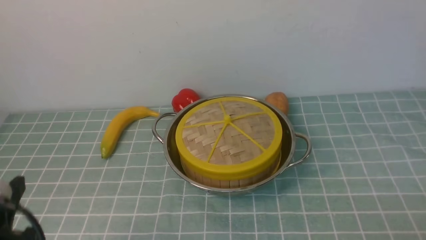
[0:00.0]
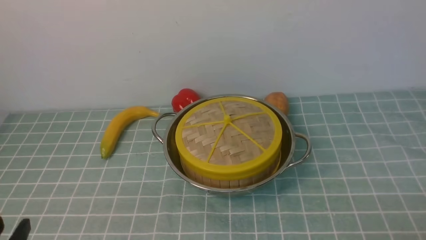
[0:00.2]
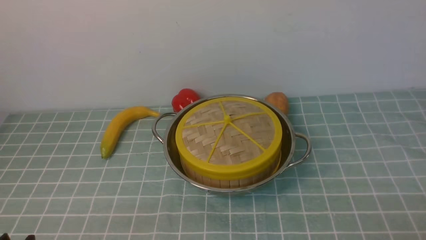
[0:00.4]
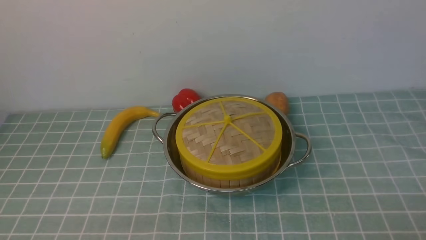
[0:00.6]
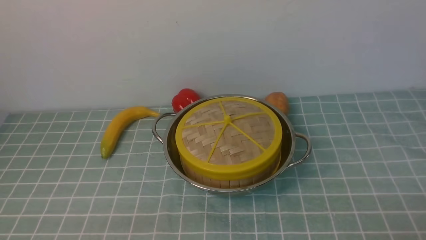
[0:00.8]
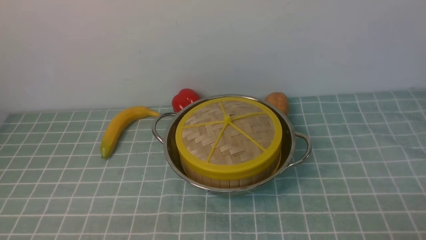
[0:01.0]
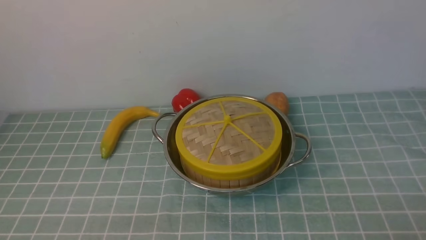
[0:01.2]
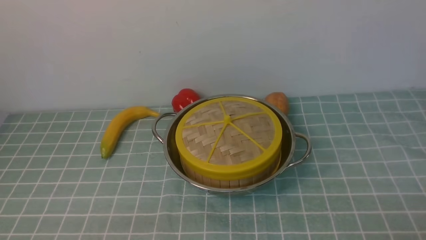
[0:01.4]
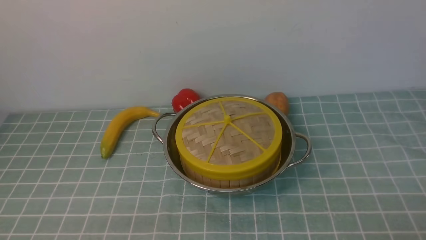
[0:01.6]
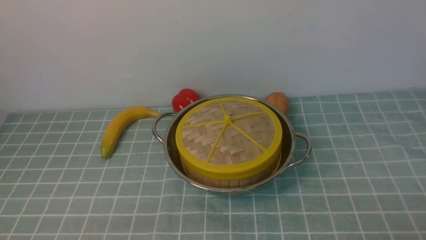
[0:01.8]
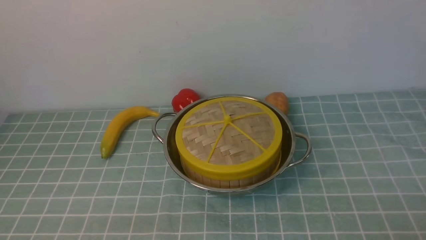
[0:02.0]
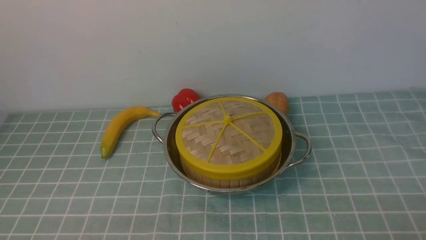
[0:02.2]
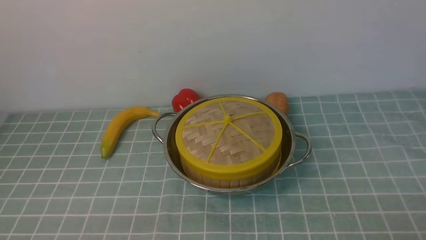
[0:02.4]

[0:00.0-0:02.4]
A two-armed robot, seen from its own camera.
Task of the whole recording: place the steamer in the pot on the blue tablecloth, and put the lid on the steamer.
0:00.0 to 0:01.2: The left gripper is displaced downward and backward by approximately 15 cm.
0:01.2 to 0:02.4: Neither gripper changes place.

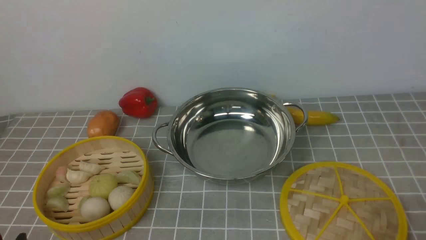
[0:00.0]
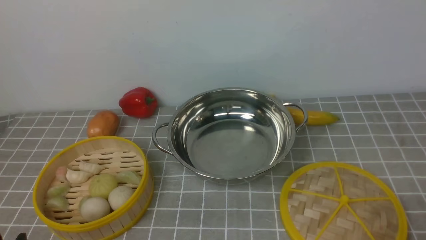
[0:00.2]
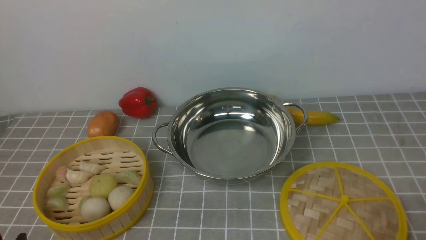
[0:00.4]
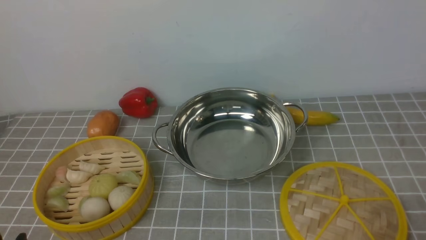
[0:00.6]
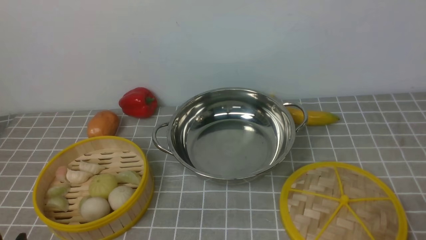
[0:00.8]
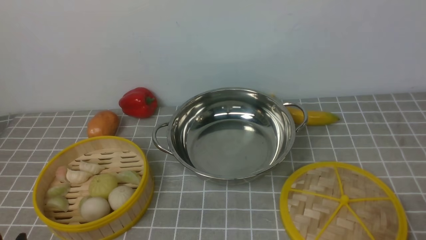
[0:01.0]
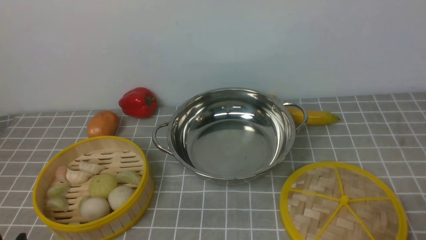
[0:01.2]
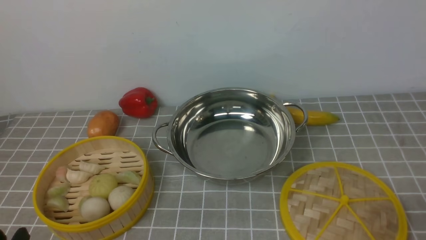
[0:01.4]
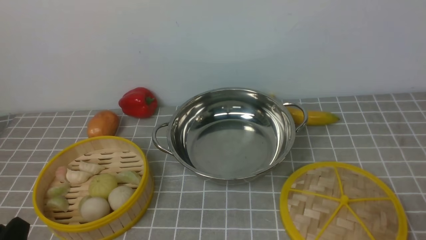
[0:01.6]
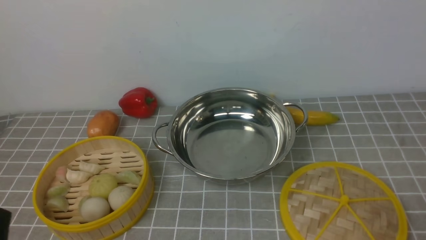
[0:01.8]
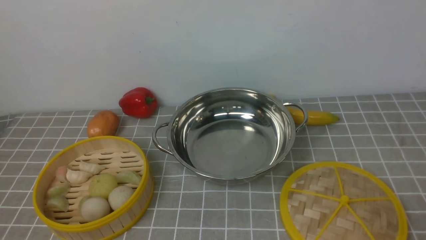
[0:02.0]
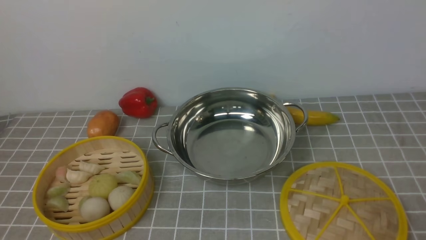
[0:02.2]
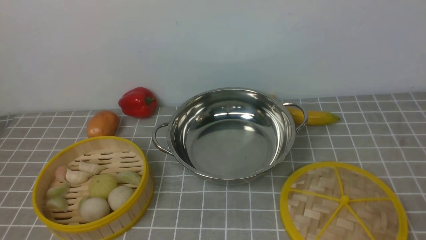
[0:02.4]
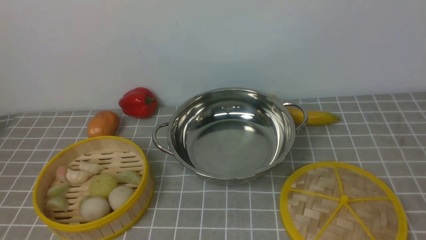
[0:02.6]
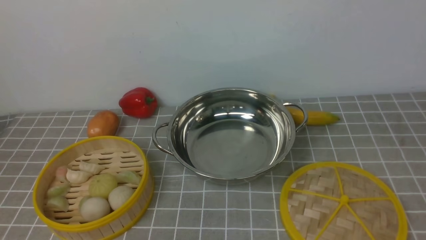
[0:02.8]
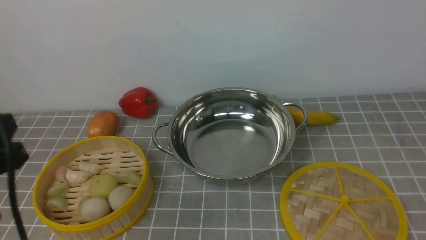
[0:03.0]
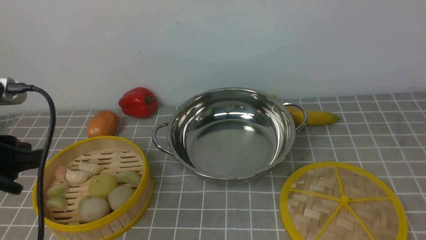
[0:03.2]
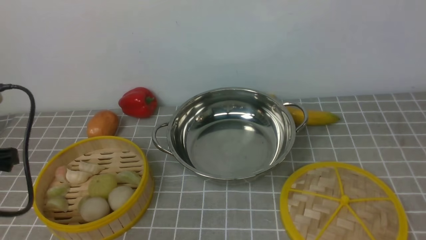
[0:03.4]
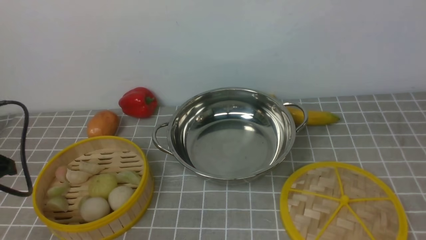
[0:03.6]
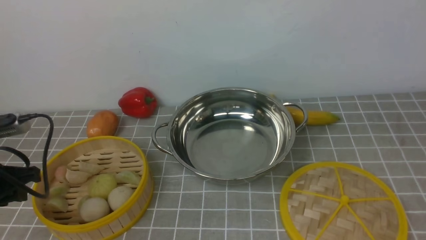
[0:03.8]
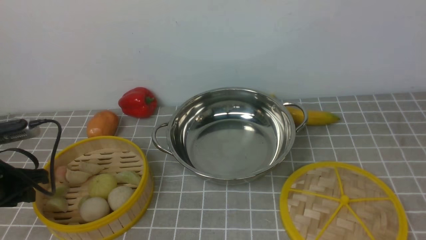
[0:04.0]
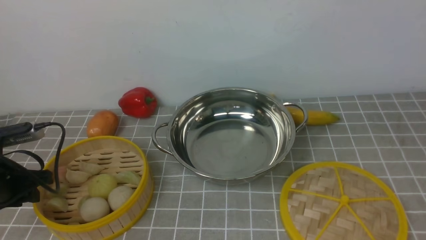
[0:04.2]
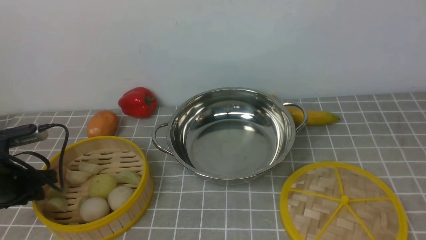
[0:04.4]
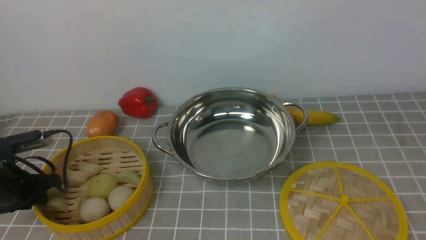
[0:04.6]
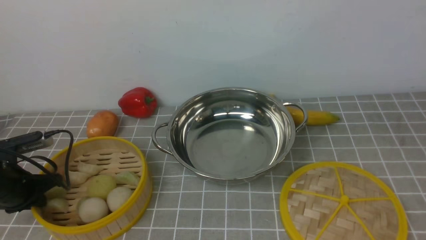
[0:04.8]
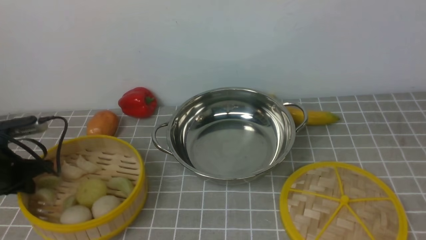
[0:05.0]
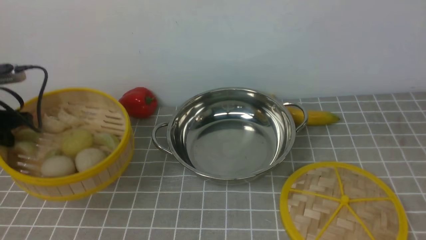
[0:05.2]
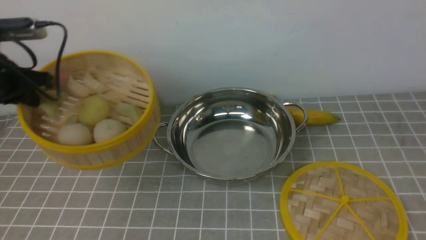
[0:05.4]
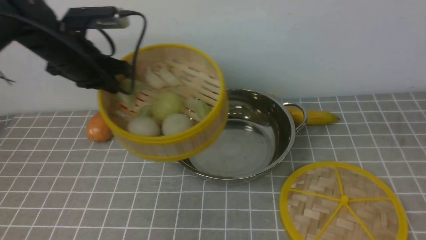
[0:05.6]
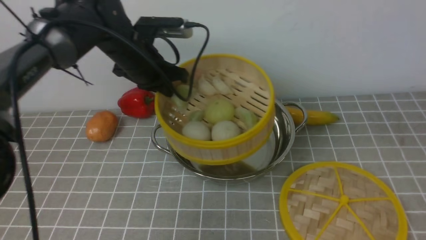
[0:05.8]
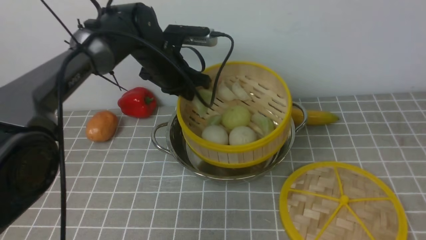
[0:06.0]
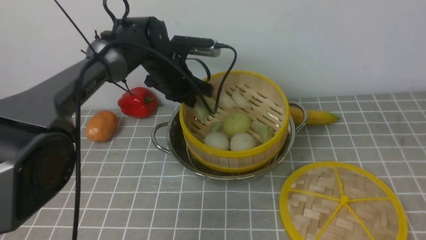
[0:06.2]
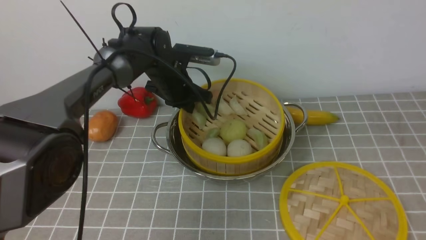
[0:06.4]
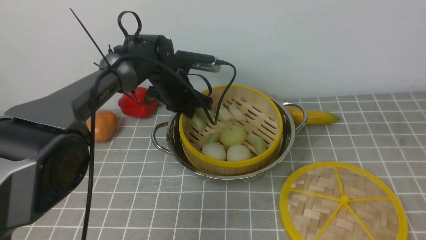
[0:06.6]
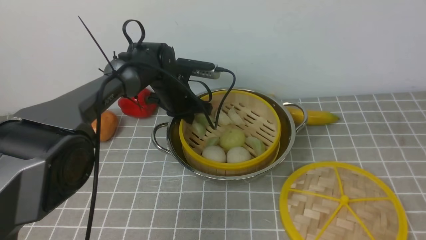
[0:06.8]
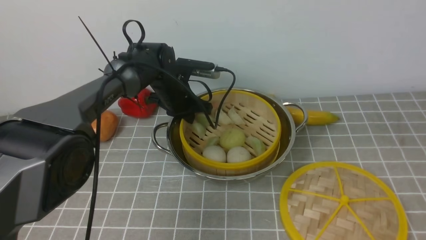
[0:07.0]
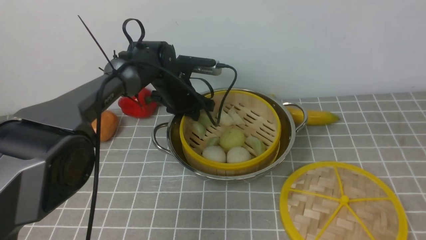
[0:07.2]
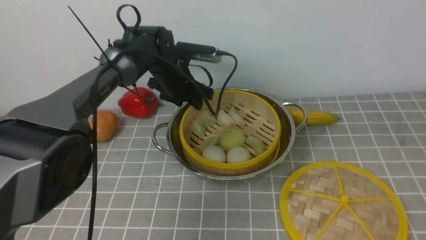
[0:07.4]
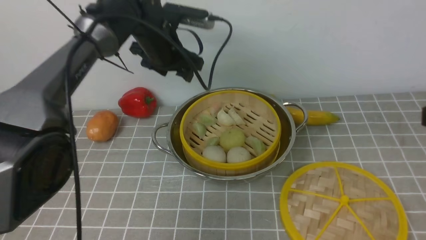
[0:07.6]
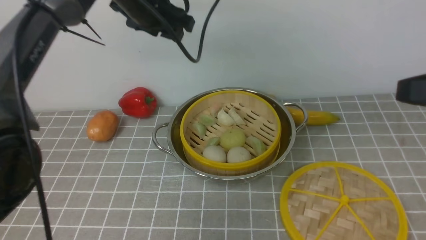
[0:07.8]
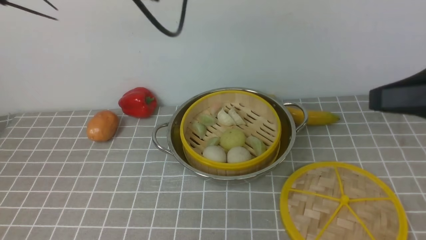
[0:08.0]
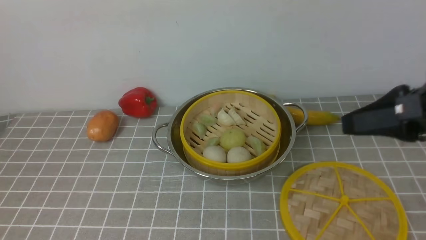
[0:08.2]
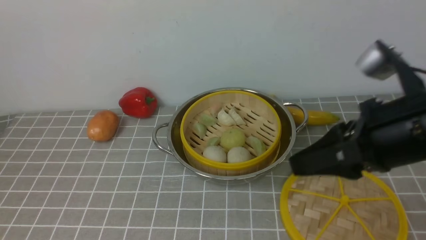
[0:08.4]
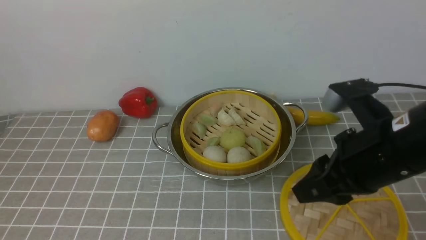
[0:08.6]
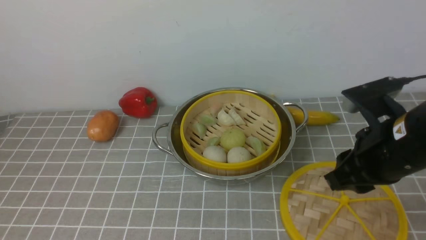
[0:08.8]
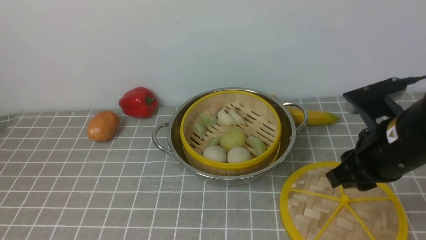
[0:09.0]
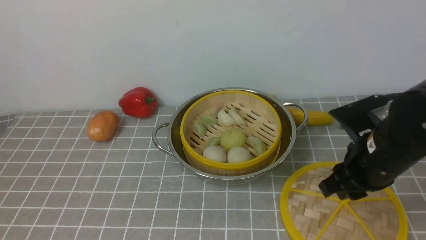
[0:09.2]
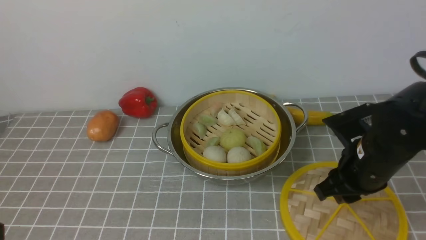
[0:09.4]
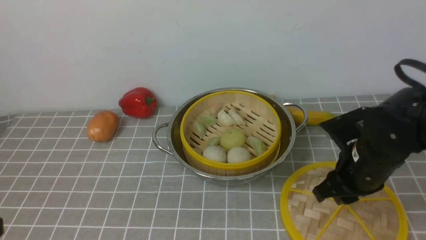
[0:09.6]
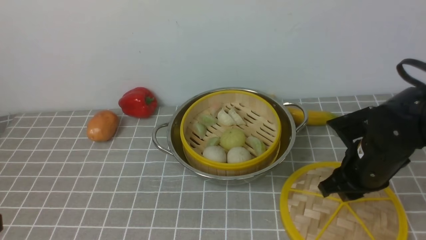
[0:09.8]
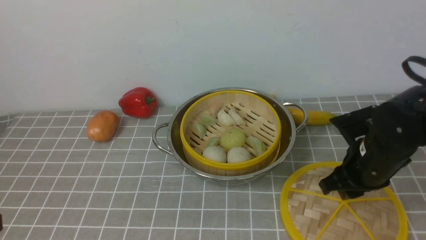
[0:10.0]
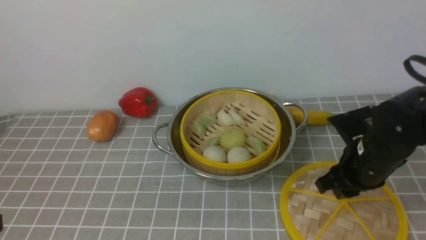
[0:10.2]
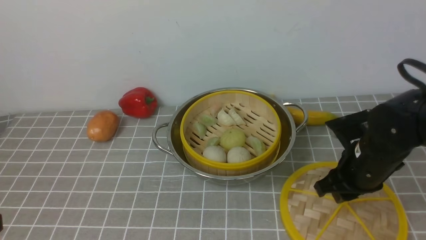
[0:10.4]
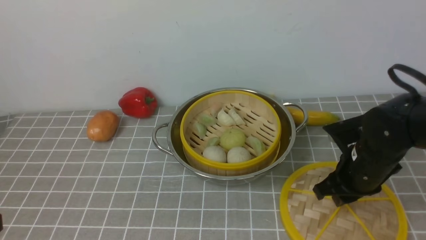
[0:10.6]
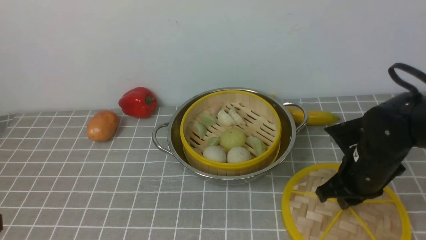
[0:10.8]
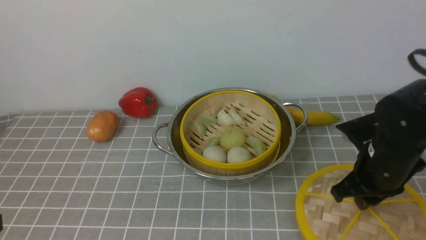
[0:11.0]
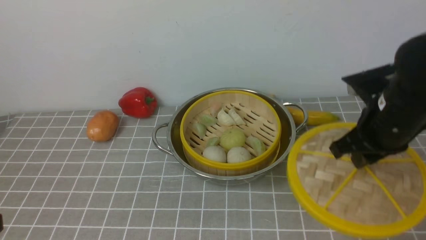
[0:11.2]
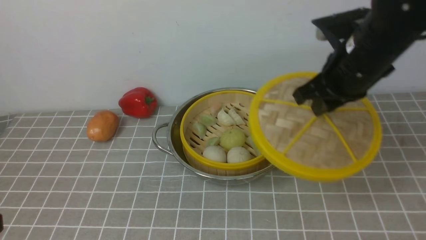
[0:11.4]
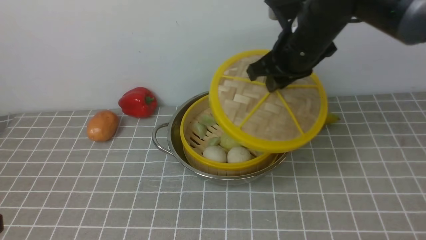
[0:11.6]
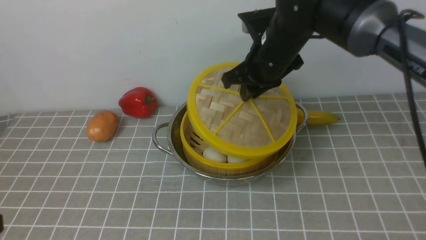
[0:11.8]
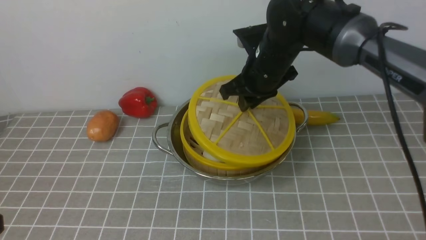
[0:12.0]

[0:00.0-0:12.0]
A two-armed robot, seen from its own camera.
Task of the whole recording: place the steamer in the pot on the grey tablecloth, and put the lid on the steamer.
Step, 0:00.0 to 0:05.0: use the left arm to lift the steamer closest to it.
Step, 0:05.2 to 0:07.4: use the left arm to put the steamer into the iron steamer pot in the middle.
Step, 0:07.6 to 0:10.8: use the right arm to lift the lid of the steamer.
0:01.6 to 0:03.0: The left gripper moves upward and forward, approximately 15 cm.
0:03.0 to 0:04.4: The left gripper heads forward, downward and to the left, covering about 25 cm.
0:04.4 to 0:06.0: The left gripper travels to the right and forward by approximately 30 cm, and closes up.
0:06.0 to 0:07.6: The left gripper moves roughly 10 cm downward and comes back, and opens its fingers.
0:07.6 to 0:09.0: The left gripper heads backward and upward, covering roughly 50 cm, and closes up. The right gripper shifts some 15 cm downward, to the left and forward.
0:09.0 to 0:10.4: The right gripper shifts some 10 cm downward and forward.
0:10.4 to 0:12.0: The right gripper travels to the left, forward and upward by some 20 cm.

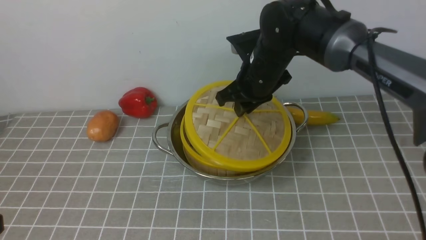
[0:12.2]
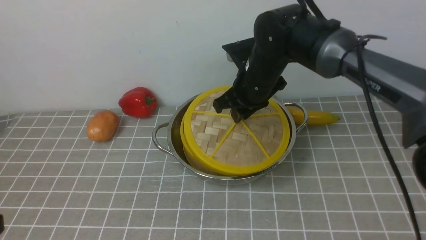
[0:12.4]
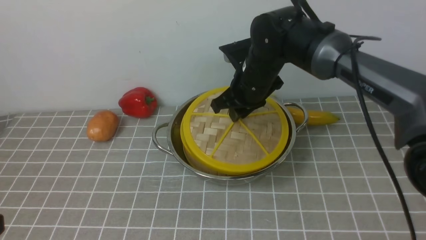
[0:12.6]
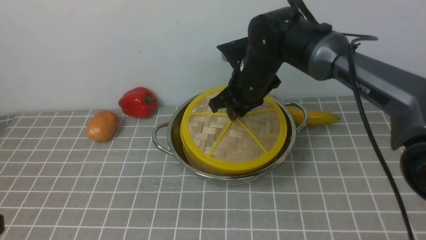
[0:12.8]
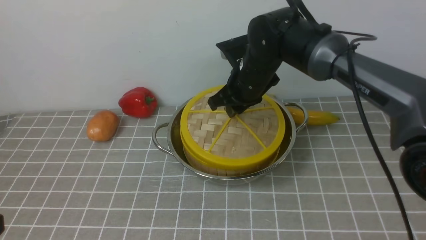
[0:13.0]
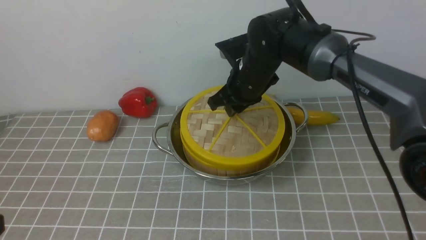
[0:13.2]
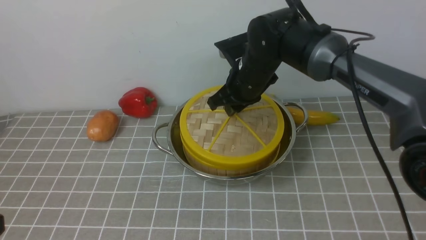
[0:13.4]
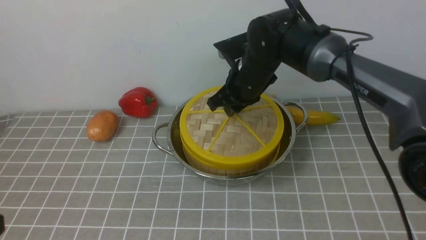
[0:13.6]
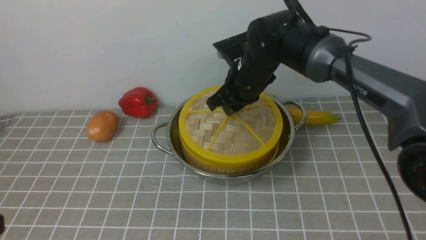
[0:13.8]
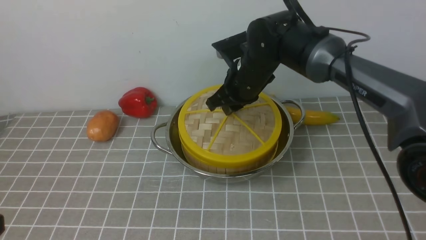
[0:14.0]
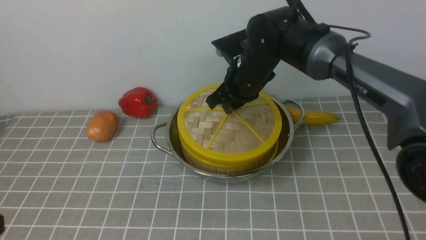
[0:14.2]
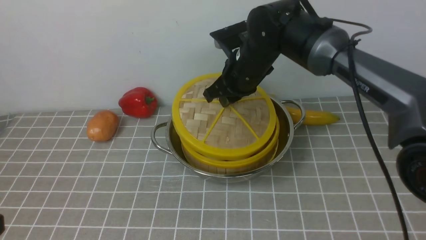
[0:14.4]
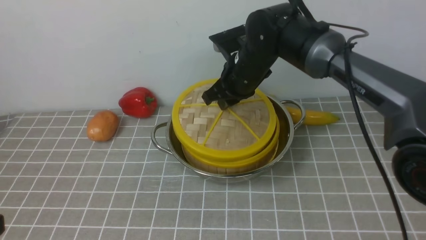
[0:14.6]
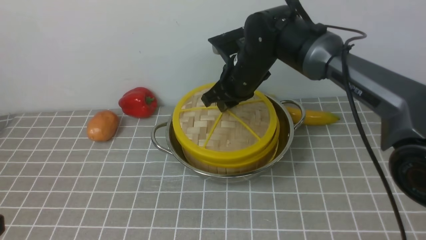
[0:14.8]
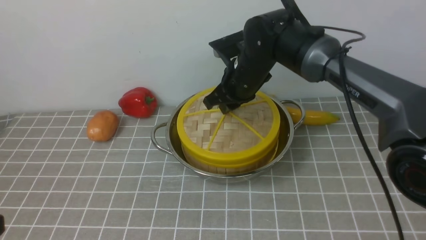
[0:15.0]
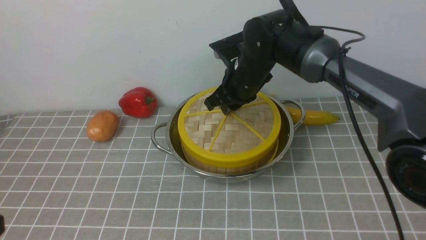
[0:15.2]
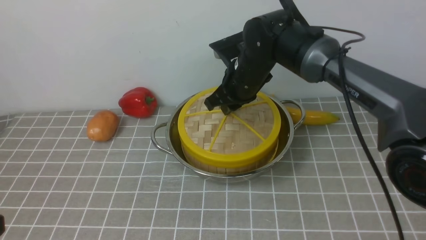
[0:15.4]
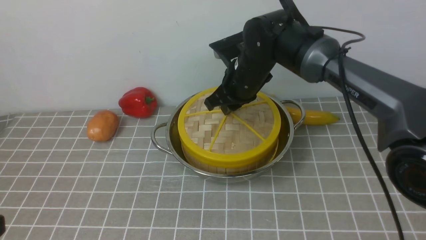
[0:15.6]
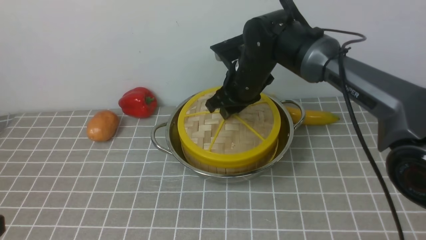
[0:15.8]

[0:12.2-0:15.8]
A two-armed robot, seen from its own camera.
Task of the whole recording: place the steamer in the pot on the grey tablecloth, and put the lid on the steamer.
0:12.2 to 0:14.0: The grippers stay close to where they were, moving slightly.
0:14.0 to 0:15.8: Both grippers stay about where they are.
